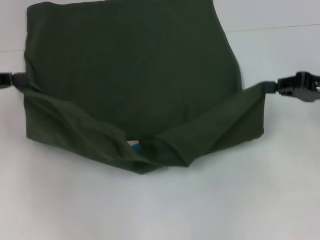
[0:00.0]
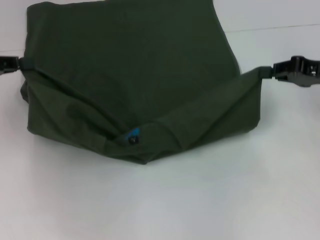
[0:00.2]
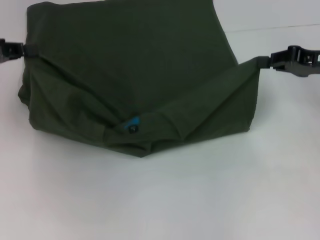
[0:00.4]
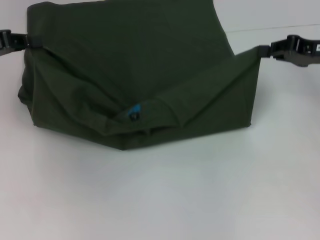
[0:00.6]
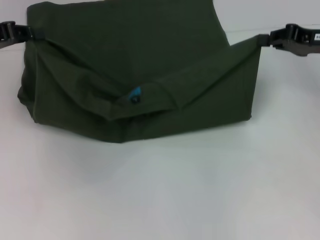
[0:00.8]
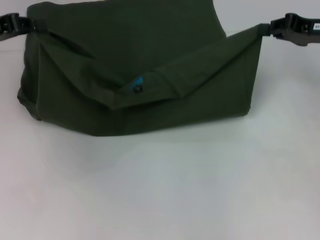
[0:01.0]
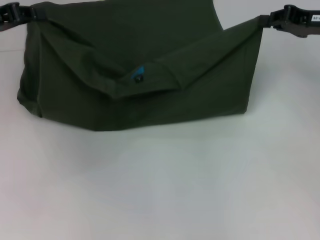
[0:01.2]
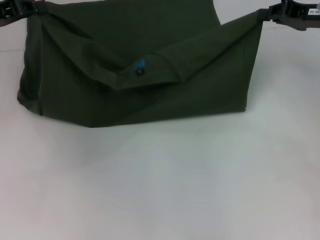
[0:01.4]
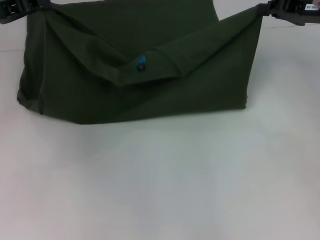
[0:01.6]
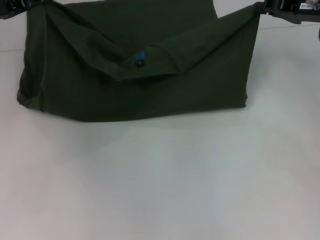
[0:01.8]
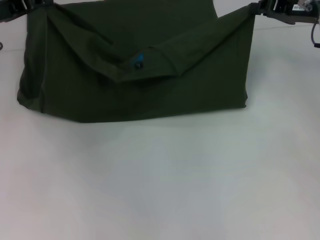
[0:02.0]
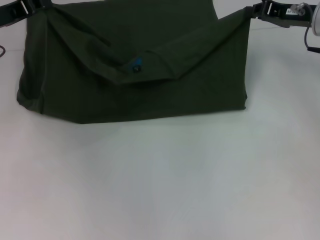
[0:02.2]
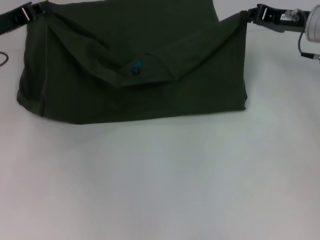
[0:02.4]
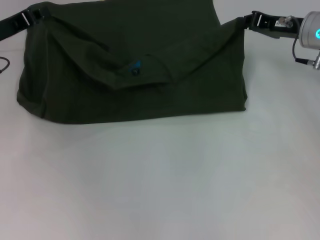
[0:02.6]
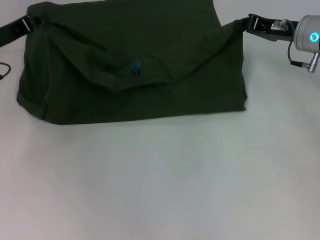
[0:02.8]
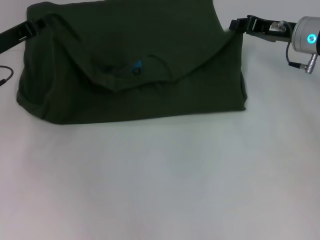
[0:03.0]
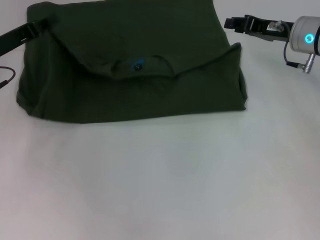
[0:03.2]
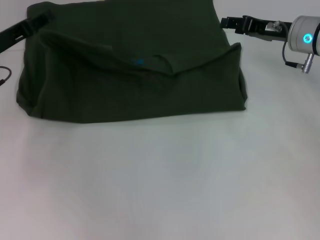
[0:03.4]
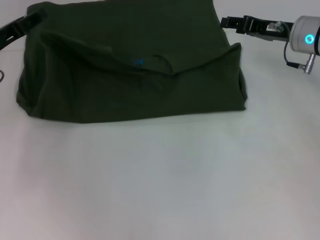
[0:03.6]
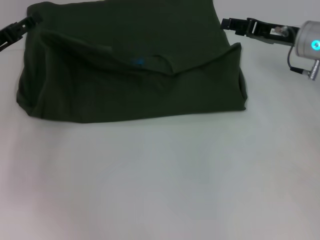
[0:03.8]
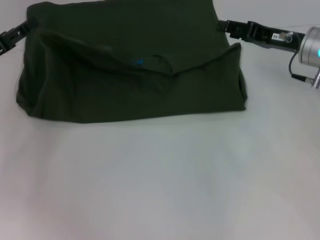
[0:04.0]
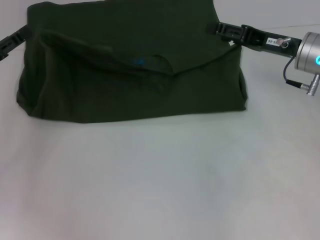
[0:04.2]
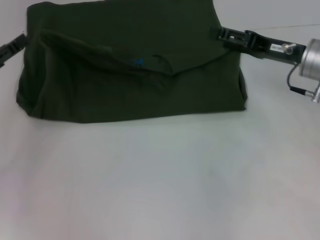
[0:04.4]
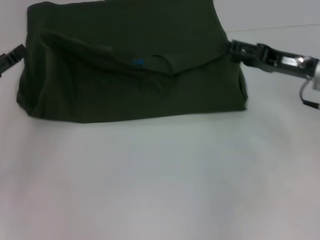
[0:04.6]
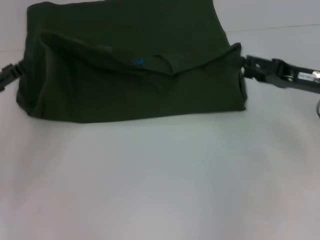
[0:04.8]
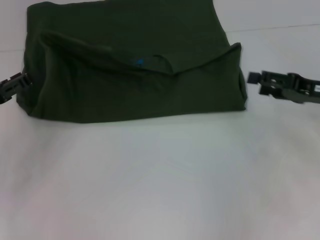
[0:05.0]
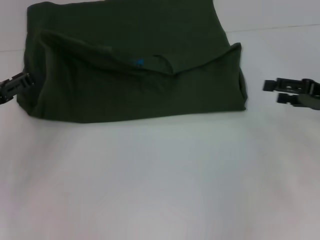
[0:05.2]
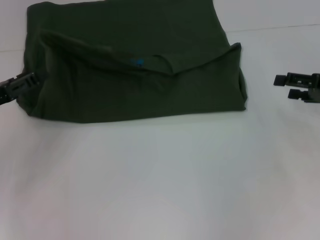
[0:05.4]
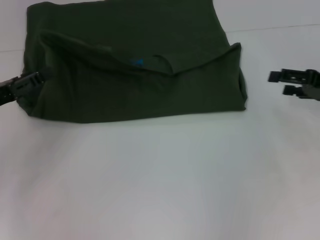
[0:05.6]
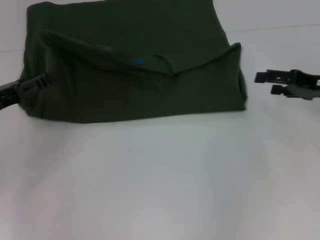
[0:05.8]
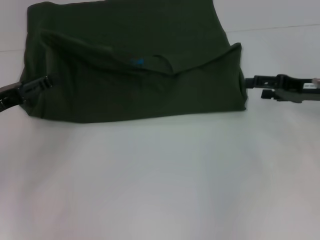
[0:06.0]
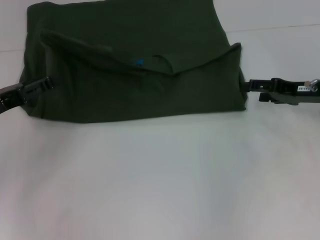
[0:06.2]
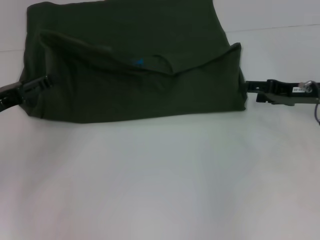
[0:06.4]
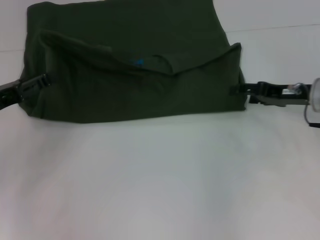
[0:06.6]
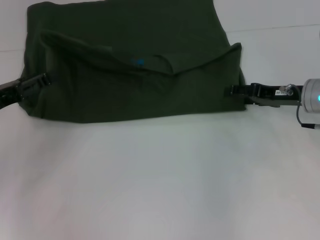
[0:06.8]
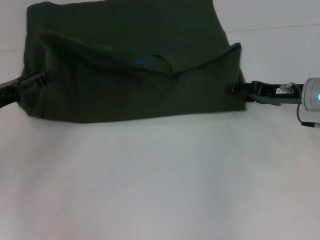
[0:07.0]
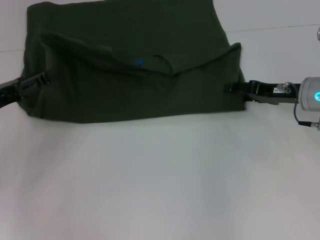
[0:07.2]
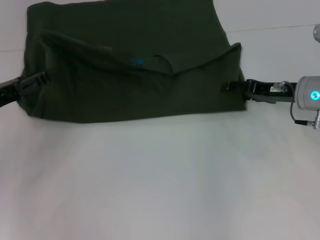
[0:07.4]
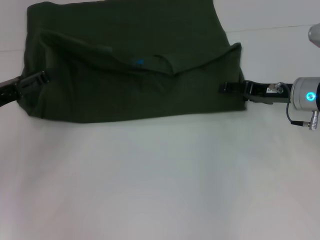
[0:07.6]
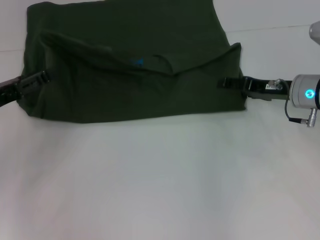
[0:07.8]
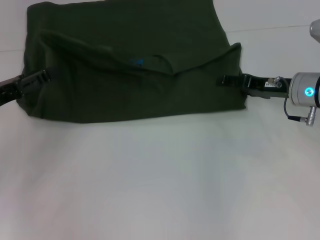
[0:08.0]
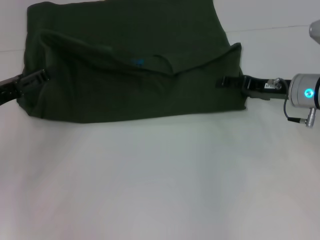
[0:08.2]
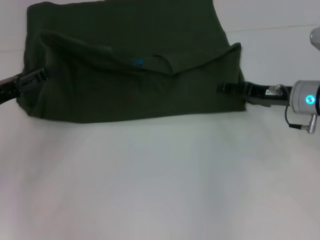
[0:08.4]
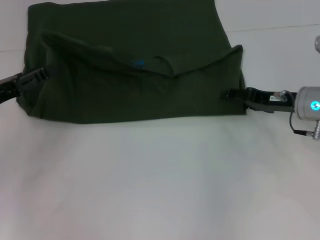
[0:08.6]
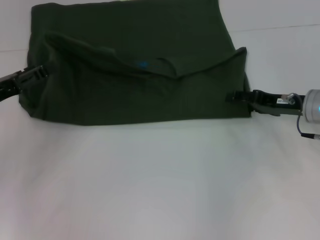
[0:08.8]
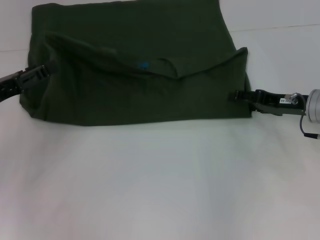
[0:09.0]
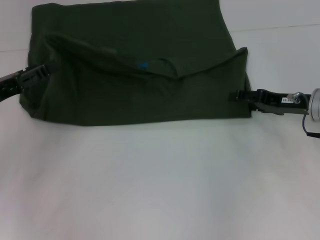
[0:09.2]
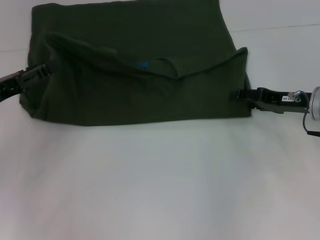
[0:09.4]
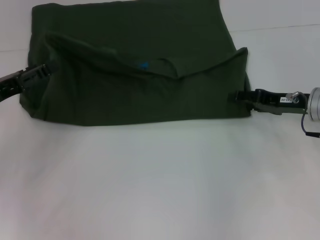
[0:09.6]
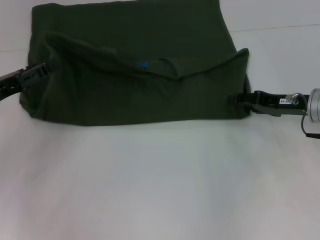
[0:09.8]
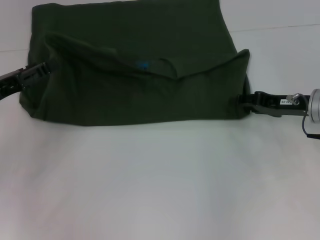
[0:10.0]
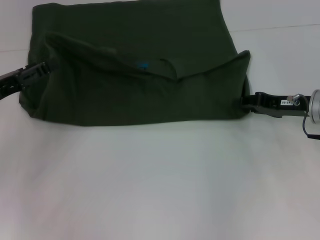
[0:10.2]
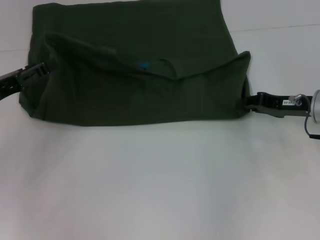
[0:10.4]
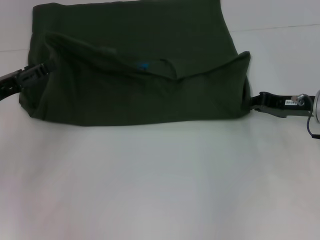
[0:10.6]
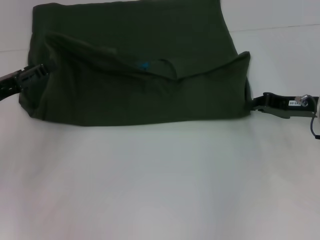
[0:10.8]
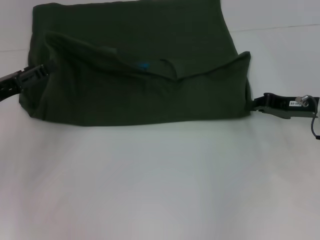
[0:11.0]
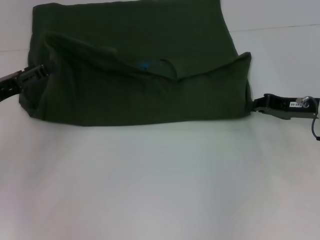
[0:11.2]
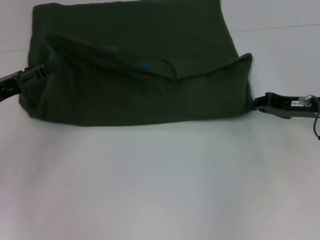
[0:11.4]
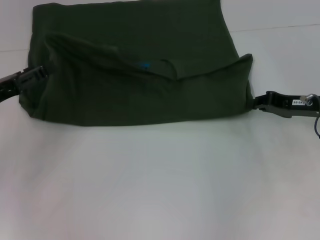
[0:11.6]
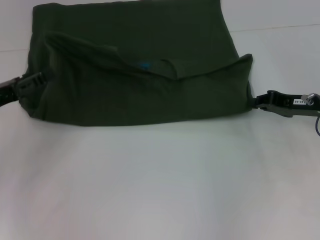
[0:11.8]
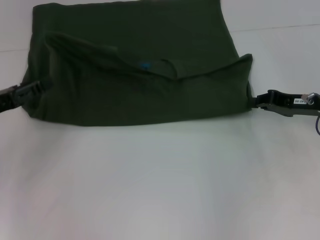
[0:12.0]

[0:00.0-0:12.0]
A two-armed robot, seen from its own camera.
Step, 0:00.0 to 0:06.0: Fold the clothes with your left hand.
Step, 0:00.0 to 0:06.0: Fold the clothes with your right hand.
0:00.0 to 0:01.6: The left gripper moves forward and to the right, roughly 10 cm. Meanwhile the right gripper is displaced forward by roughly 10 cm.
0:01.6 to 0:03.0: The right gripper moves about 5 cm. The left gripper is displaced downward by some 5 cm.
0:03.0 to 0:04.4: The right gripper travels backward by roughly 5 cm, and opens. Meanwhile the left gripper is displaced backward and to the left by roughly 10 cm, and opens up.
0:04.4 to 0:06.0: The right gripper is displaced to the right by approximately 5 cm.
0:06.0 to 0:07.6: The right gripper changes place by roughly 5 cm.
0:07.6 to 0:09.0: There are only small adjustments of the grippers.
0:09.0 to 0:10.4: The right gripper closes its fingers.
0:10.4 to 0:12.0: The right gripper closes its fingers.

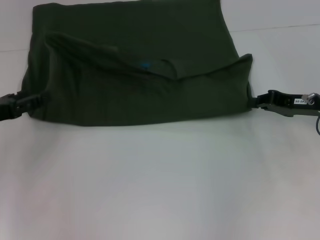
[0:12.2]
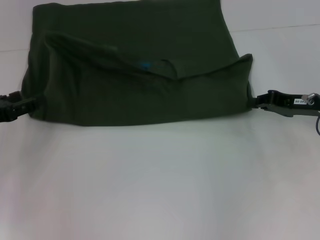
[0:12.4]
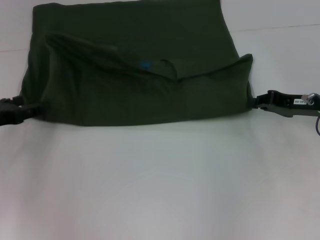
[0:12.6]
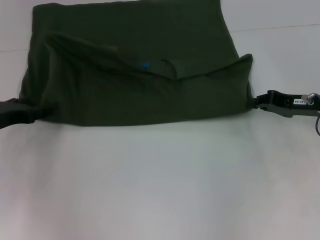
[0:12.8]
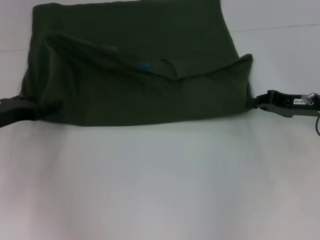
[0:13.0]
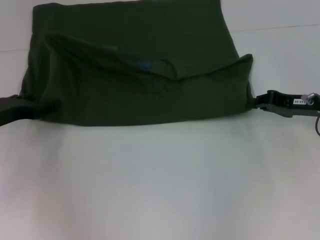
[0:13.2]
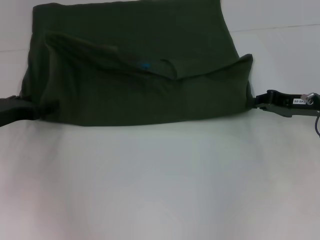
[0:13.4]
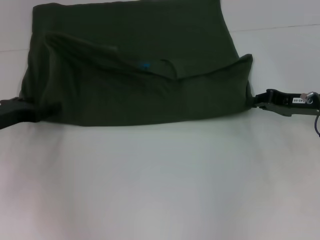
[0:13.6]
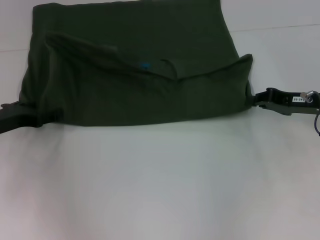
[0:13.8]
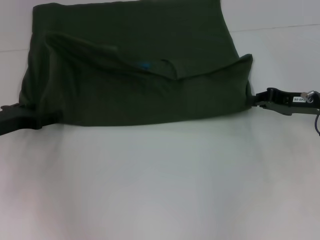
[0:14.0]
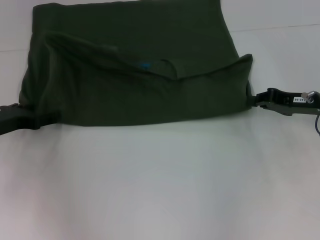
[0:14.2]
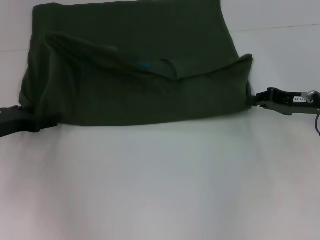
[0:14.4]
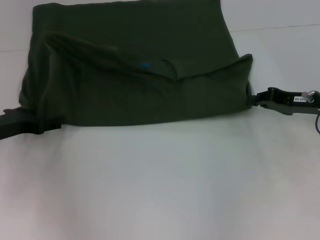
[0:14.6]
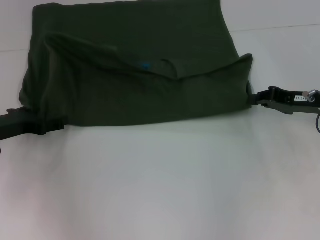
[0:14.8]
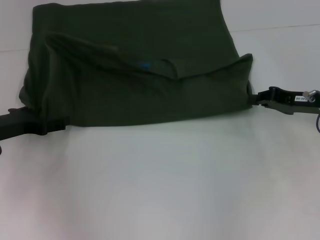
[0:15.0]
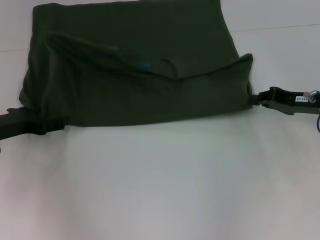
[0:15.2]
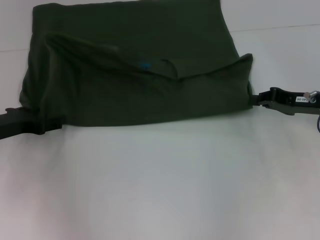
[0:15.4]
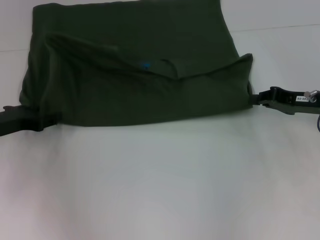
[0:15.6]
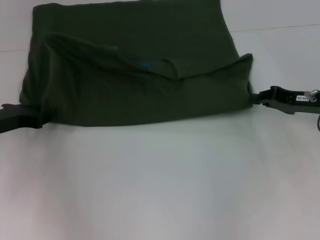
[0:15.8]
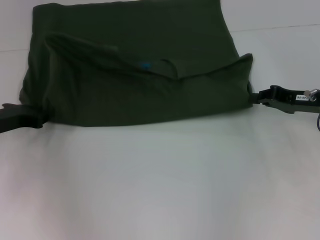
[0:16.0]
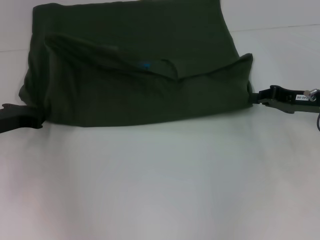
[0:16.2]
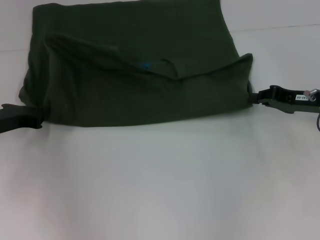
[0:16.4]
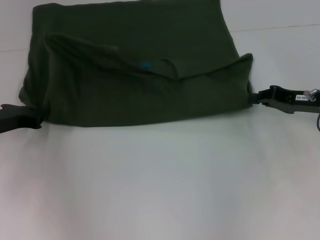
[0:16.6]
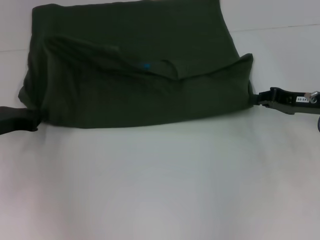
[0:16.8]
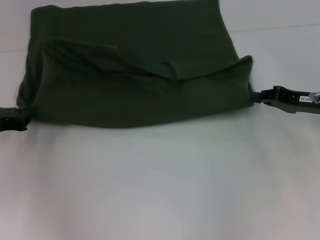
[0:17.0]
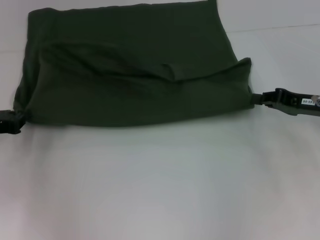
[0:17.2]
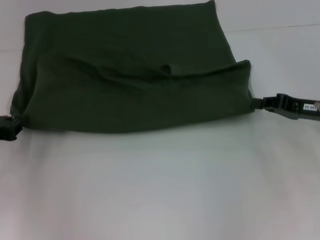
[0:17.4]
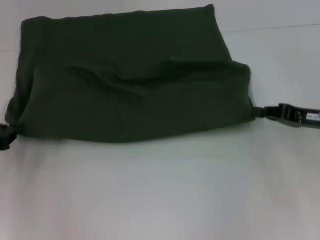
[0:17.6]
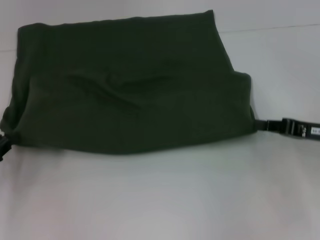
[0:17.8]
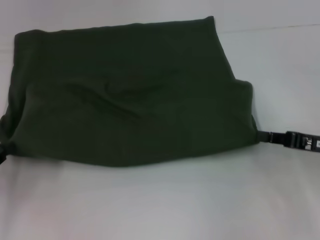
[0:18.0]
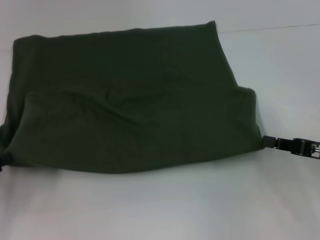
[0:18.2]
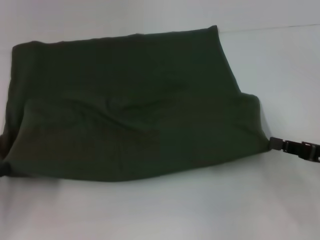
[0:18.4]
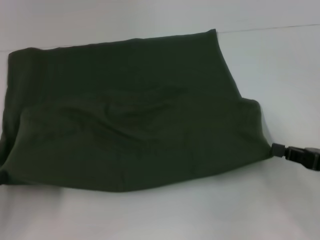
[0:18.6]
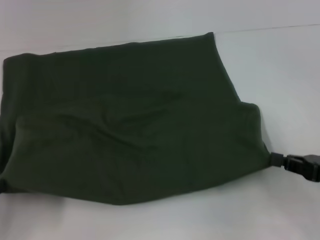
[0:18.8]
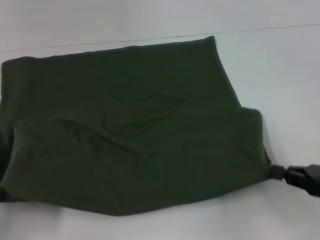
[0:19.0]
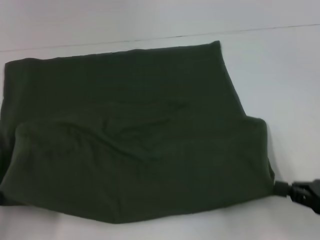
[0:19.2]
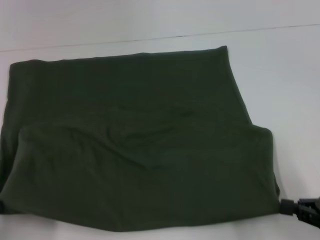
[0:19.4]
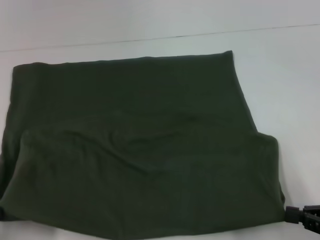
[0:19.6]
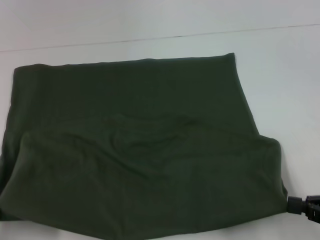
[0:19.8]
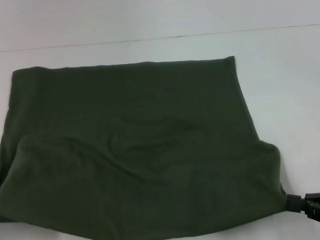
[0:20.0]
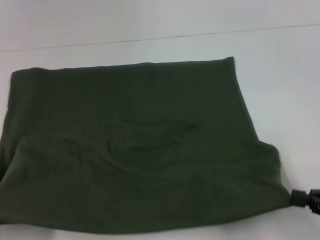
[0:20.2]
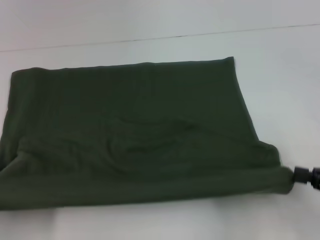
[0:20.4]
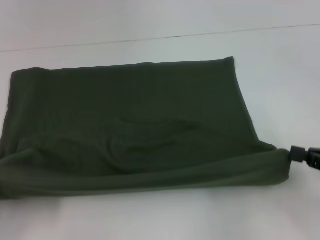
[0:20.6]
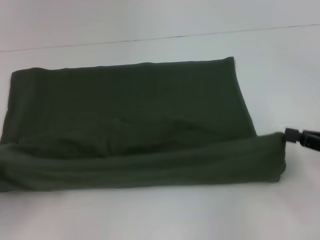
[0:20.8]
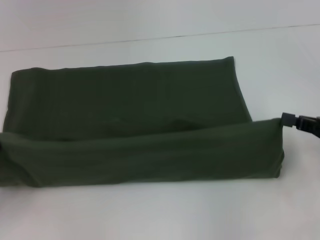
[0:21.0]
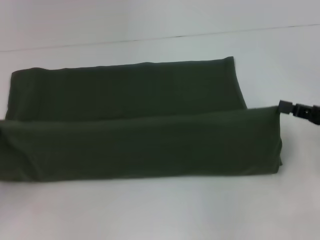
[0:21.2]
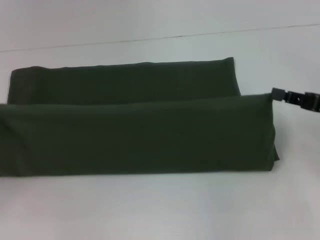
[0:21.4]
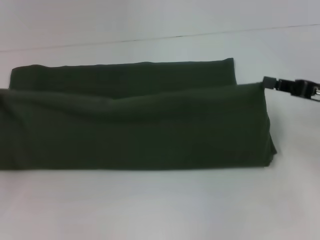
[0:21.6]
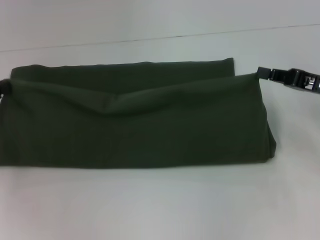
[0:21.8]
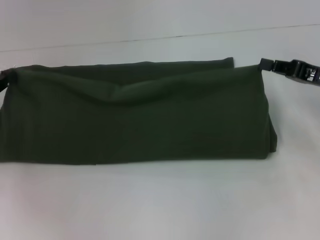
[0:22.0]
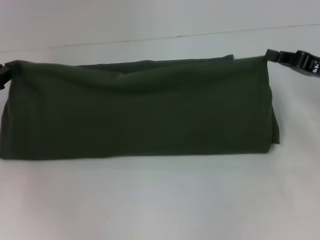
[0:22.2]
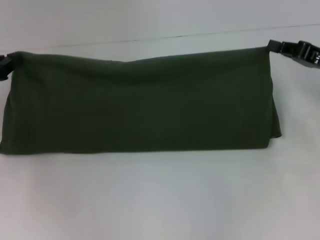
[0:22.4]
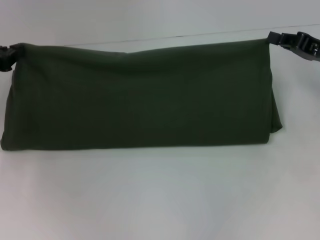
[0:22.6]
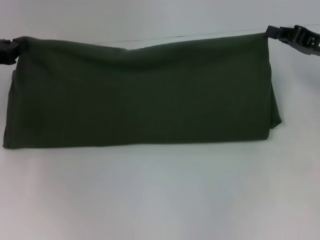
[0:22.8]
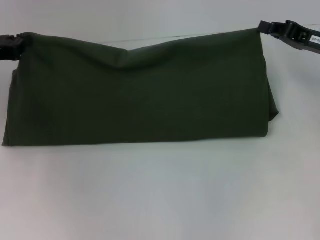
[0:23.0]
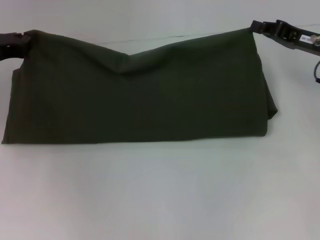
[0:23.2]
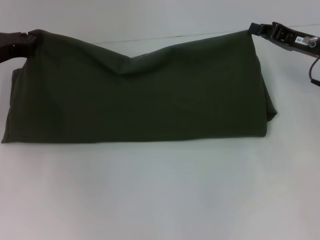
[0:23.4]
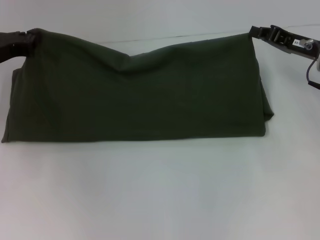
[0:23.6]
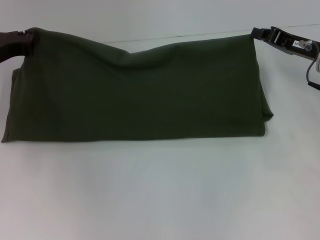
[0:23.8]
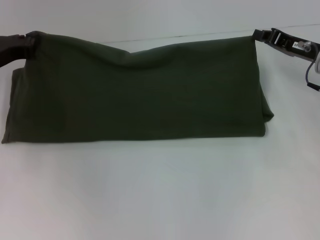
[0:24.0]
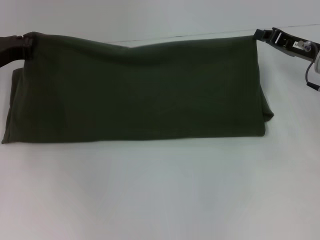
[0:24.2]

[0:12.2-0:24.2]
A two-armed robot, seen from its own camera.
Step, 0:12.2 to 0:20.0: Pull the clothes with your left hand.
Step, 0:12.2 to 0:20.0: Pull the clothes with your right hand.
0:12.2 to 0:13.8: The left gripper changes place by roughly 5 cm.
0:13.8 to 0:15.2: The grippers stay close to where they were, moving slightly.
0:15.2 to 0:16.6: The left gripper closes its fingers.
0:16.6 to 0:18.2: The left gripper shifts roughly 15 cm backward and to the left, while the right gripper shifts roughly 10 cm backward.
0:18.2 to 0:19.8: Both grippers move backward, roughly 10 cm.
0:19.8 to 0:21.2: Both grippers travel together forward, about 10 cm.
0:21.2 to 0:22.6: The right gripper goes some 10 cm forward; the left gripper goes approximately 15 cm forward.
0:22.6 to 0:24.2: The left gripper moves some 5 cm. The right gripper changes place by some 5 cm.